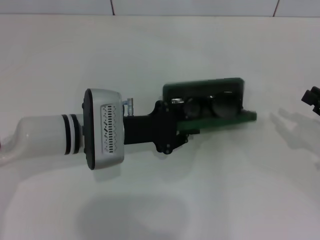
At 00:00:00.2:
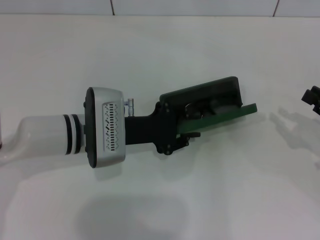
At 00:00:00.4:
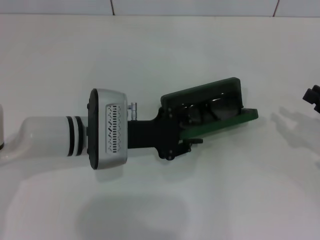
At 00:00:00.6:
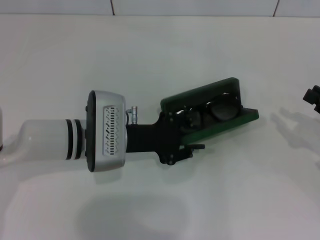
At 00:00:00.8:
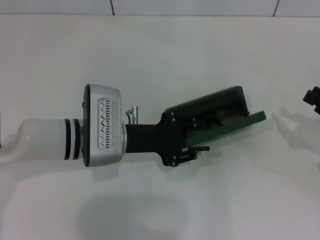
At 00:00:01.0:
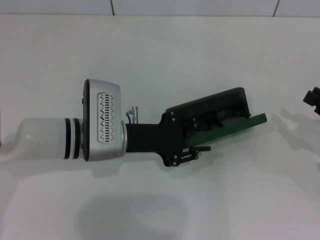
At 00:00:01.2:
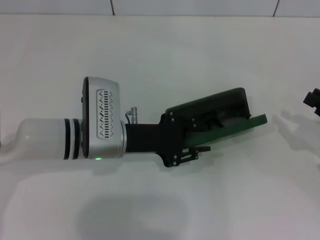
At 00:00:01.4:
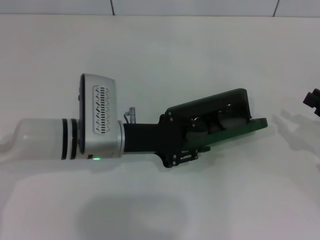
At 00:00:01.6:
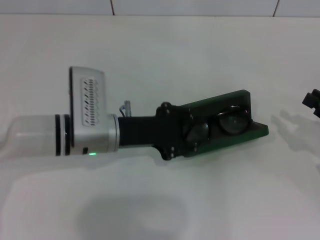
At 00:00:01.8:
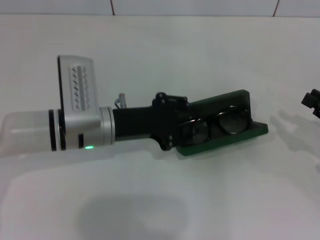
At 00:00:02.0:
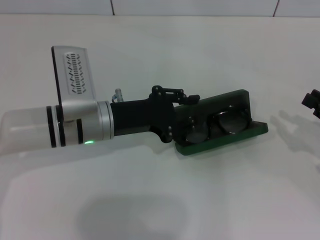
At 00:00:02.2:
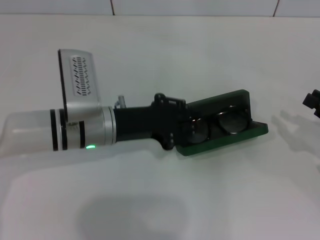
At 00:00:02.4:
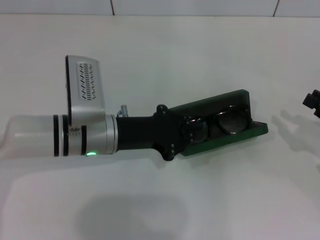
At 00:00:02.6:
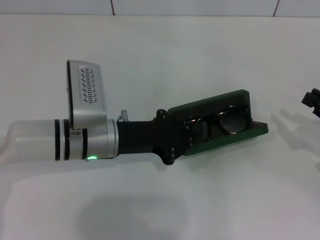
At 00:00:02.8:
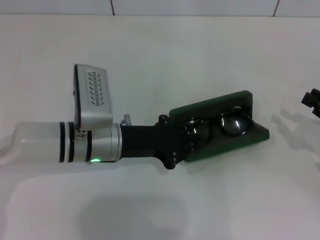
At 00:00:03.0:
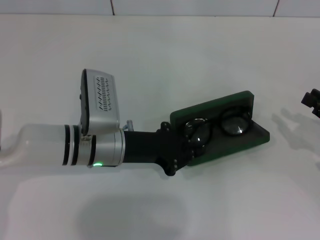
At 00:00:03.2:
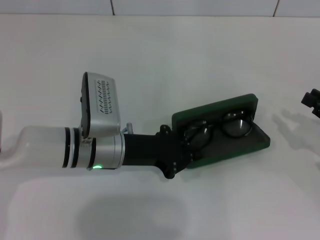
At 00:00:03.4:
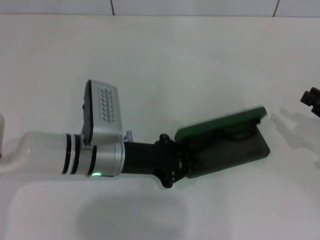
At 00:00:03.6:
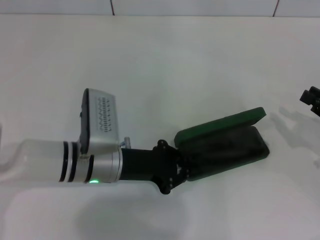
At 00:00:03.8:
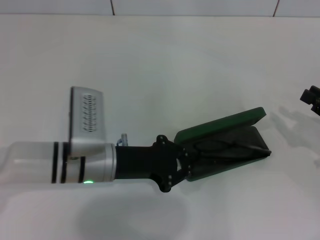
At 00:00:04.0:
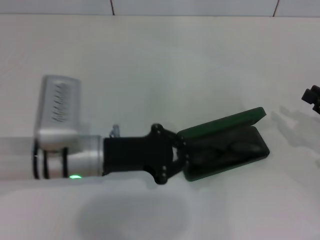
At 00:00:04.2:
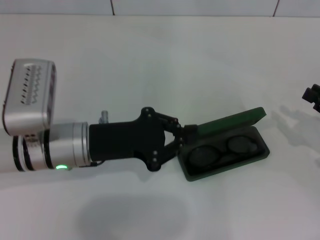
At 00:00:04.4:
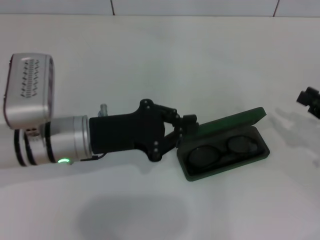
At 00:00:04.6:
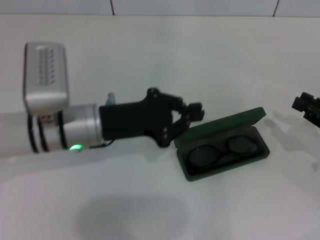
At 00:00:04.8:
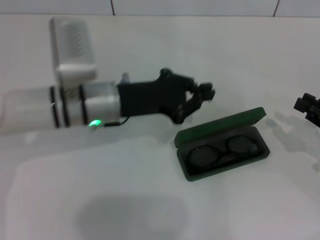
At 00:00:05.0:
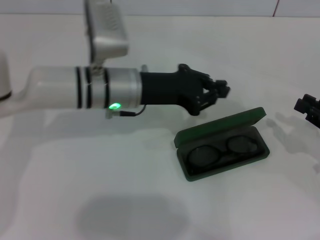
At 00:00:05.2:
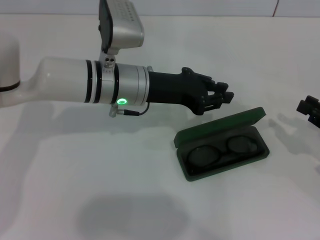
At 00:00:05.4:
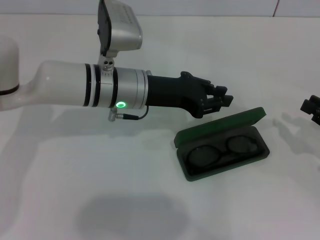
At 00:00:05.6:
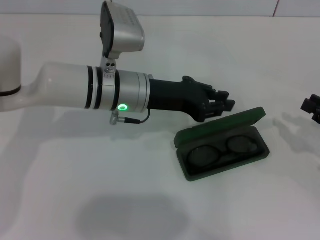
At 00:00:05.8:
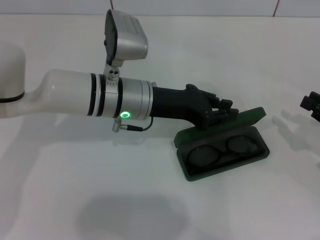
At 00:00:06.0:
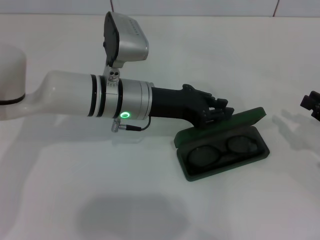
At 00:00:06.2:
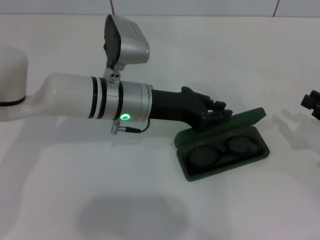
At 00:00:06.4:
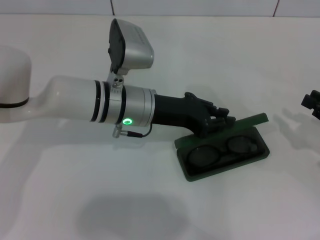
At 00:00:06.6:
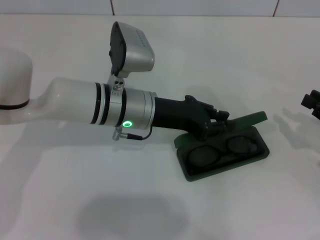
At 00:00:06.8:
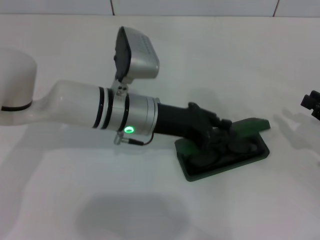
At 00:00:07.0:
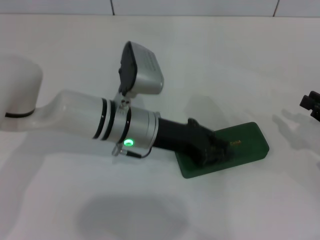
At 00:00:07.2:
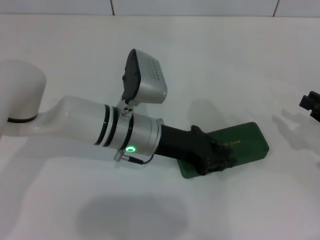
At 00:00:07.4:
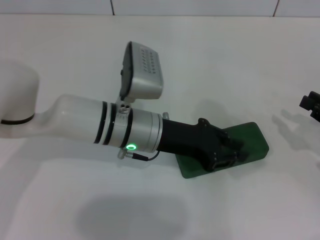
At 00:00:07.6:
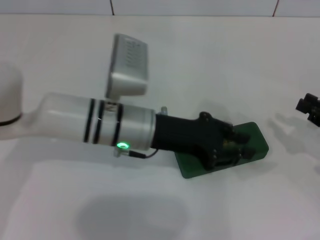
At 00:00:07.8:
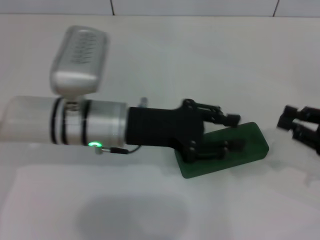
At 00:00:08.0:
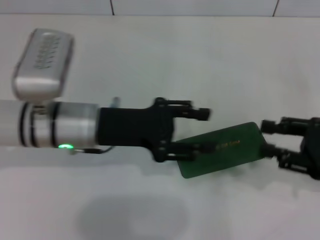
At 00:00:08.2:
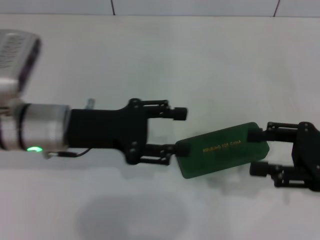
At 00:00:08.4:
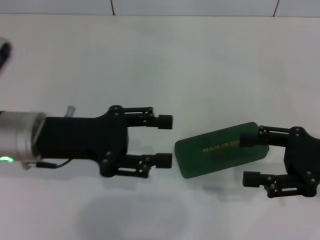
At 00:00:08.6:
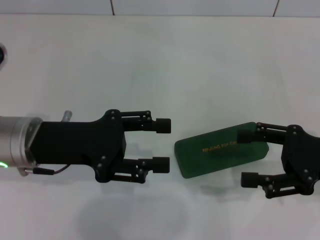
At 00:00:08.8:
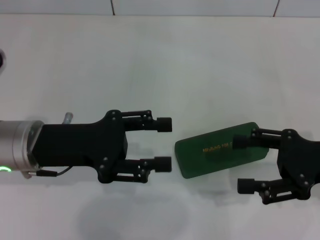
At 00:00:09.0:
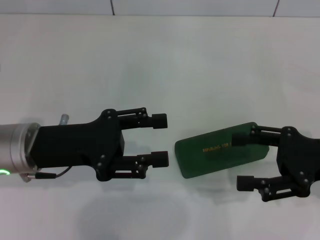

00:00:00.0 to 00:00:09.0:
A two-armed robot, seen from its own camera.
Step, 00:00:00.0 to 00:00:07.0: Close the glasses case with your left hand.
00:00:01.6 to 00:00:03.0: The left gripper closes up.
00:00:03.0 to 00:00:04.4: The left gripper shifts by roughly 5 cm.
00:00:04.4 to 00:00:06.0: The left gripper shifts about 10 cm to the right and forward.
00:00:06.0 to 00:00:07.6: There are only small adjustments of the grippers.
00:00:07.6 to 00:00:09.0: The right gripper goes some 10 cm to the left and upward, and opens. The left gripper shifts about 15 cm to the left, and opens up.
